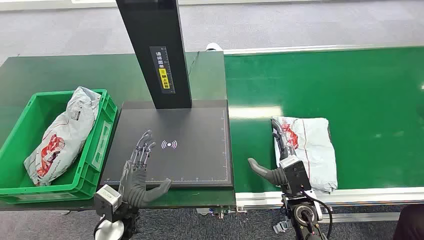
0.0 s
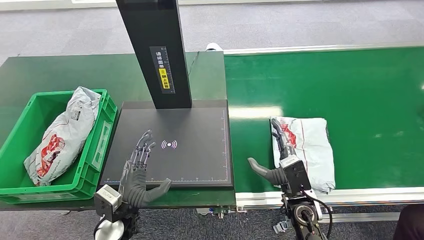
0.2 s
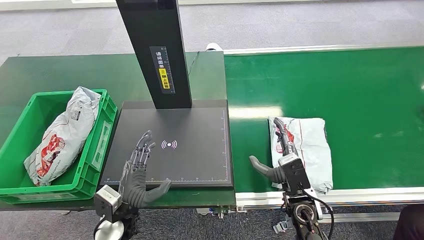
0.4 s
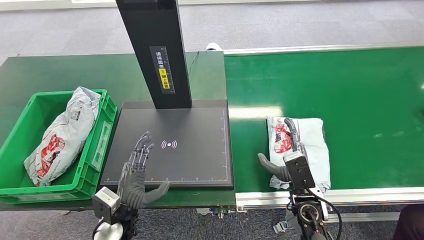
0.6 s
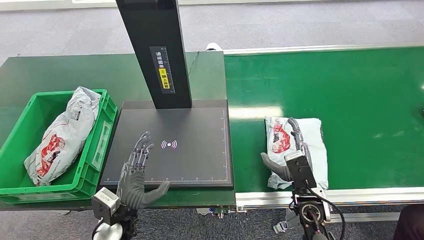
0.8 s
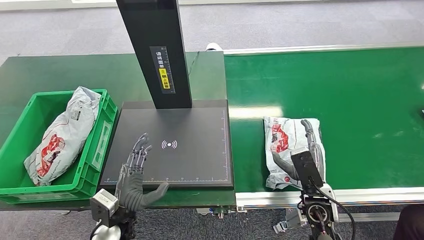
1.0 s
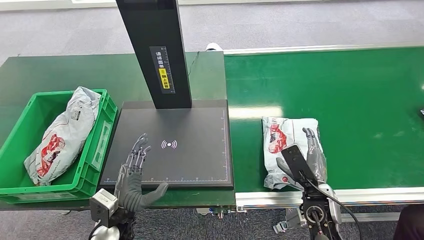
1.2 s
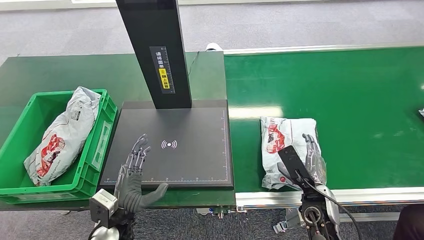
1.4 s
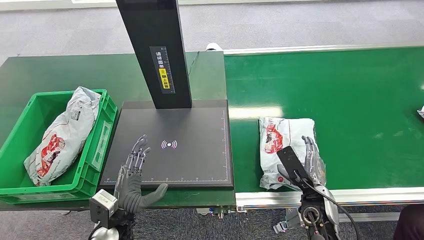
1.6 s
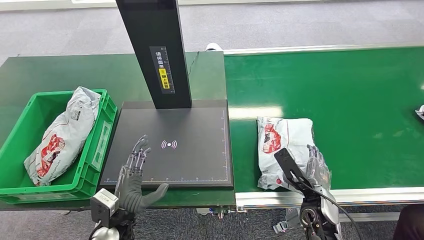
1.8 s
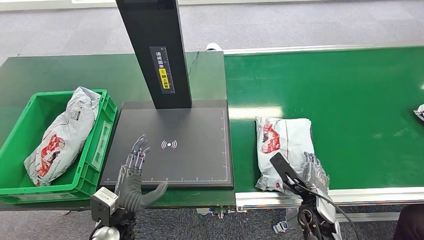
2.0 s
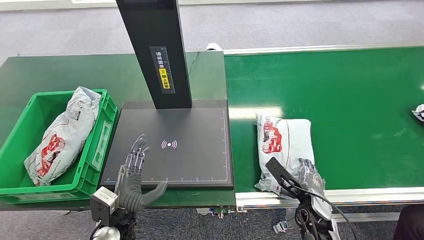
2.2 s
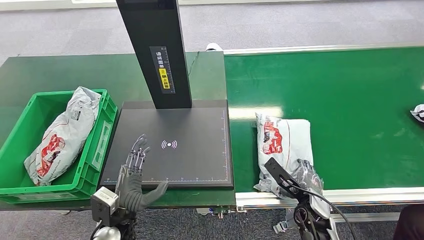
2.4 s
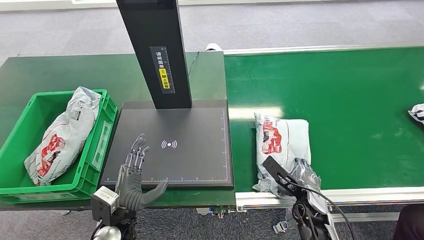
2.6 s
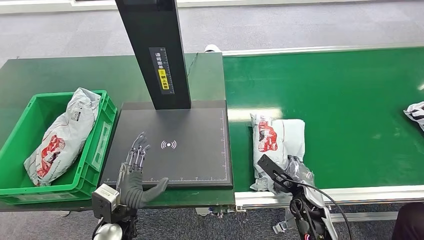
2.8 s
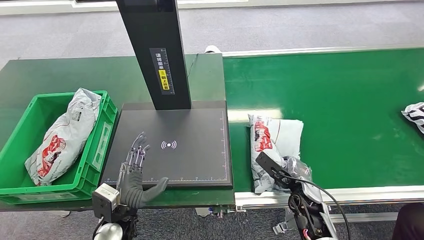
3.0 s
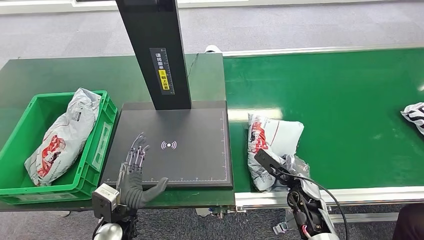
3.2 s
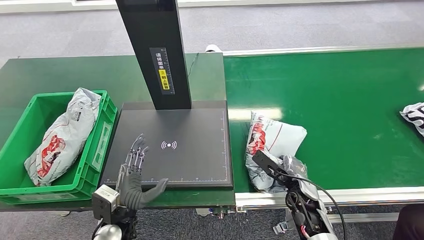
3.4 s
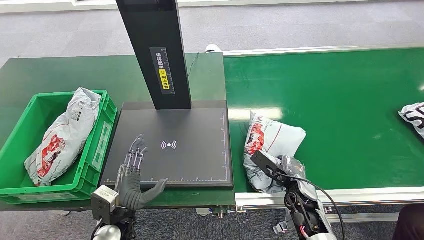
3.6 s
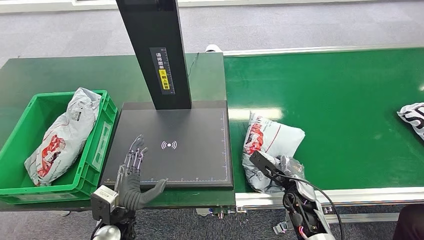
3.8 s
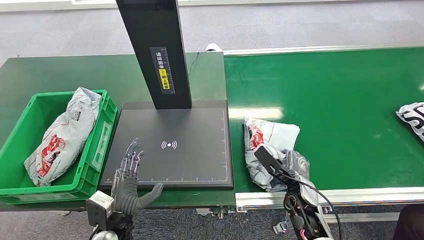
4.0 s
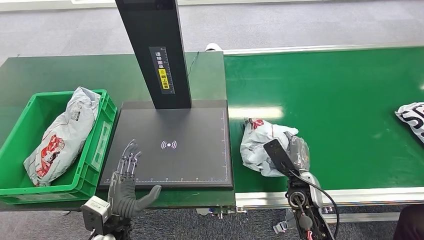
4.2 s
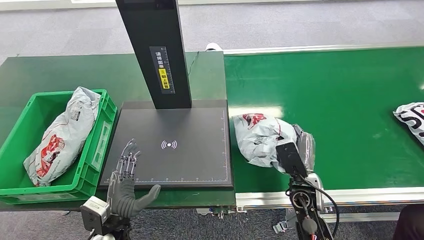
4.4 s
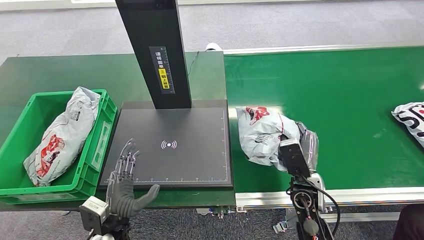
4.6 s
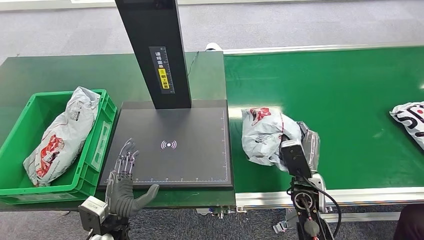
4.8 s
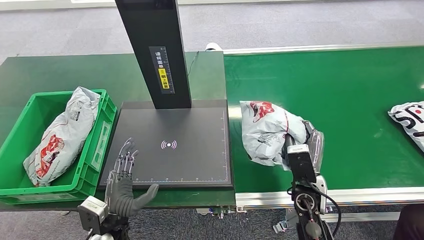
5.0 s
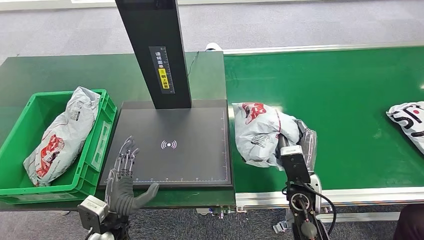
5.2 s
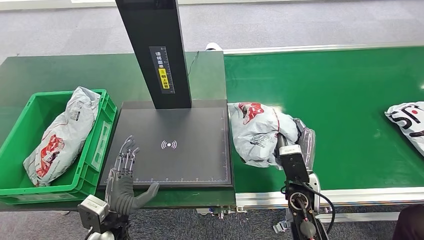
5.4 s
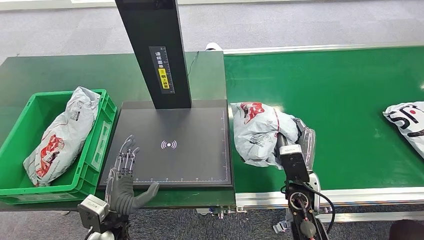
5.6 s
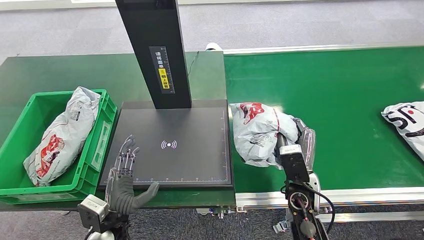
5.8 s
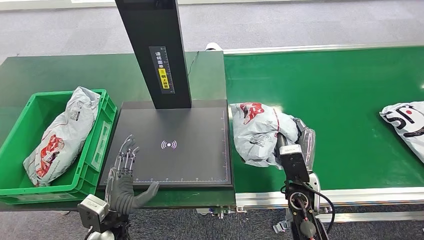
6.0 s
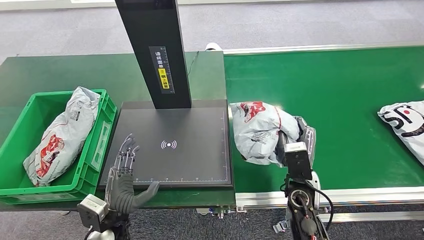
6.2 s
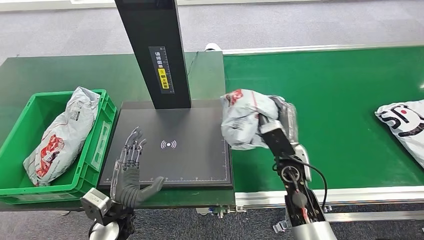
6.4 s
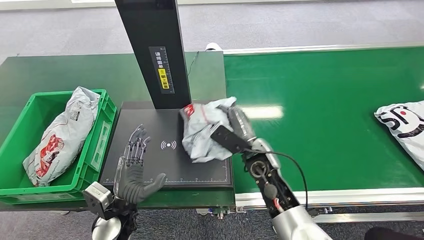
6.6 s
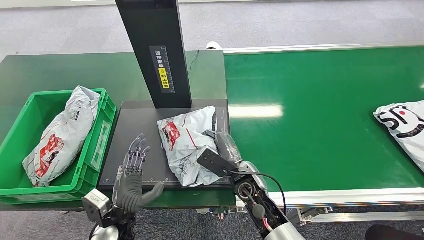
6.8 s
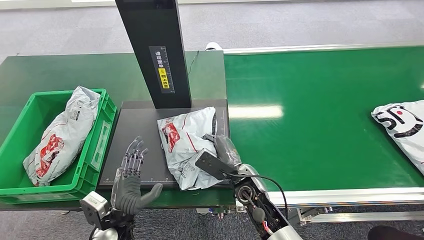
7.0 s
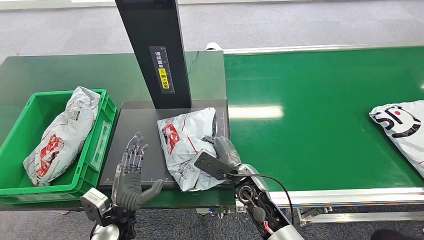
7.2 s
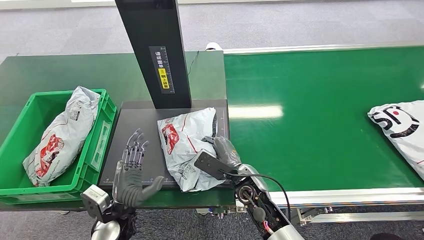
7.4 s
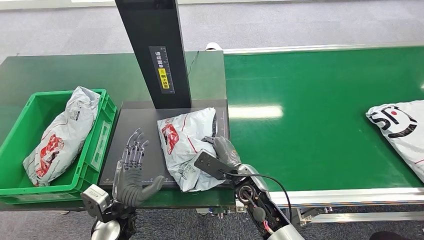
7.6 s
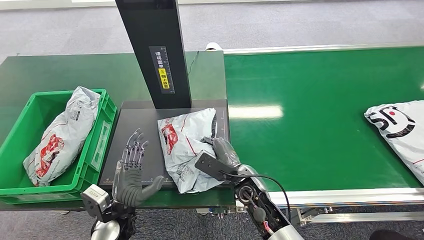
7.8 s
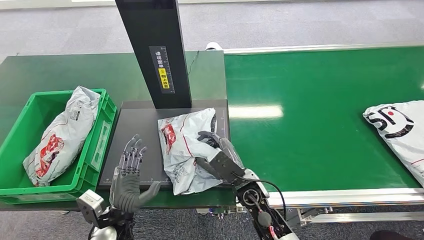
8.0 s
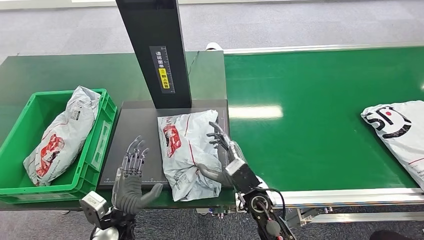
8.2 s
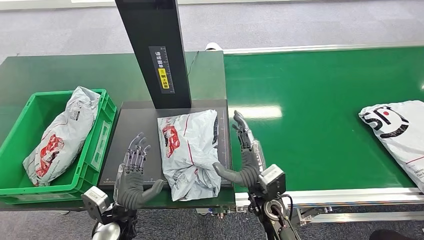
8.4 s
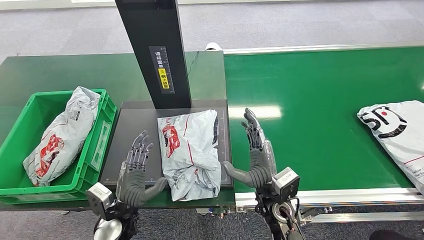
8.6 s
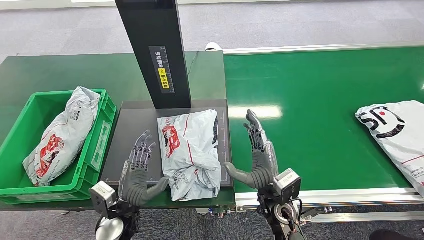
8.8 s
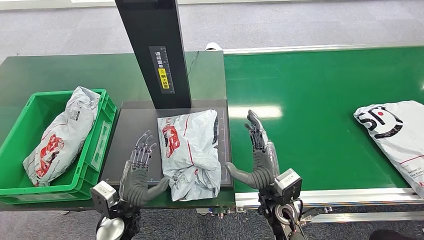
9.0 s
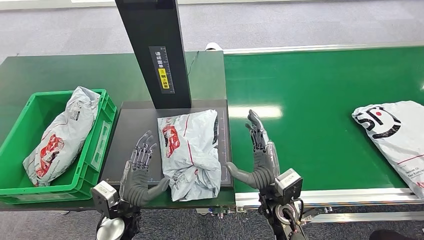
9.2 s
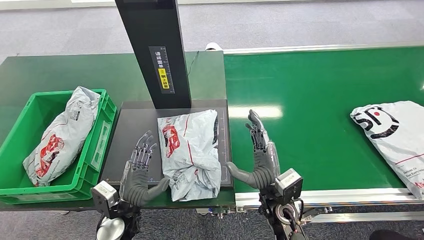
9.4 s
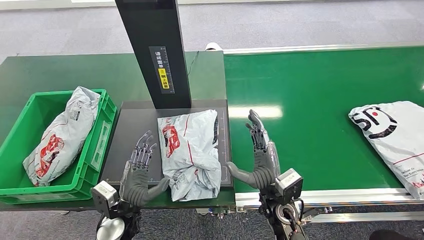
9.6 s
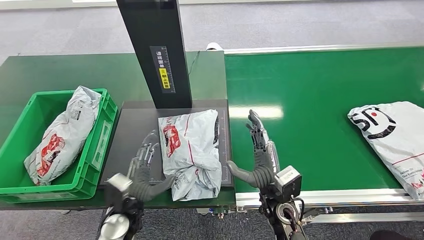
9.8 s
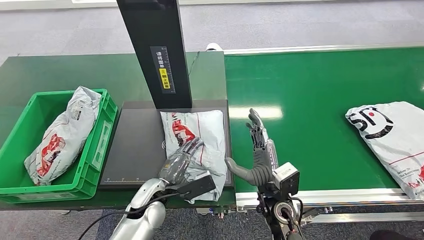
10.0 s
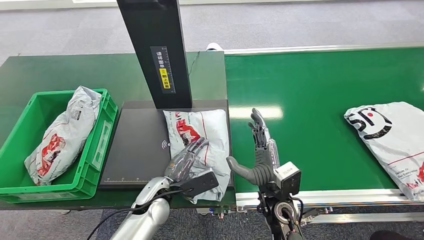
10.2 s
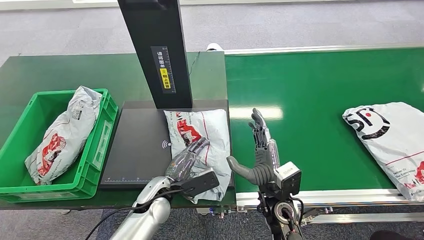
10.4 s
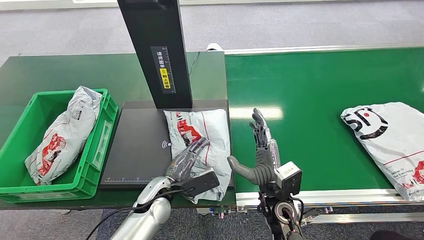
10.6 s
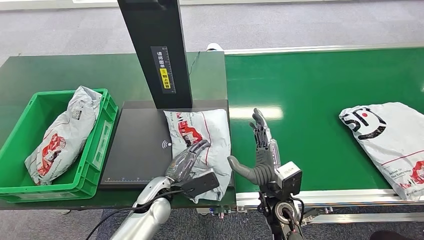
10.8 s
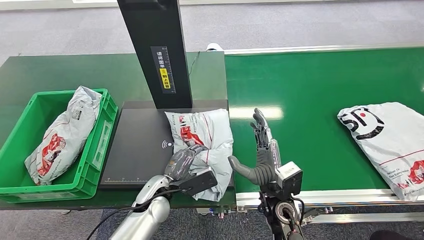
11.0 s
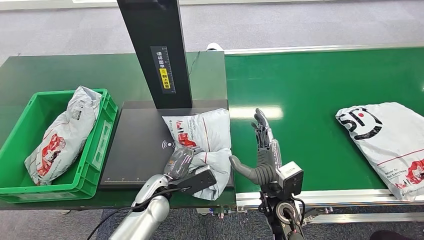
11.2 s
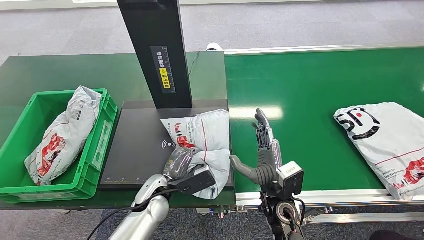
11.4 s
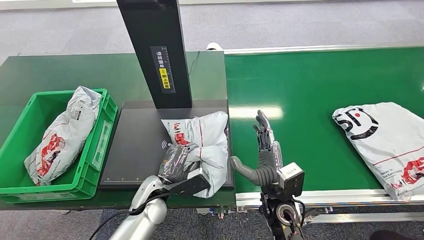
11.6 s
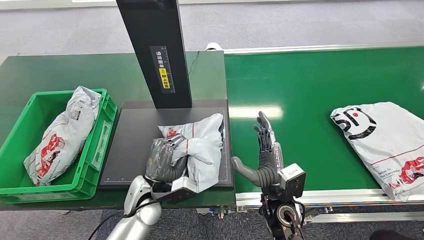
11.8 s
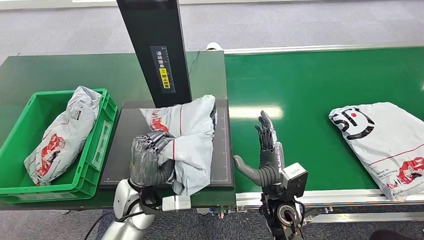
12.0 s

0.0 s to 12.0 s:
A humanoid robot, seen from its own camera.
Step, 0.0 to 4.6 s: Pick up the package from the conveyor belt.
Step, 4.8 to 8.8 s: Place the package onto the inbound machine.
3.0 to 4.4 s: The right hand moves upward, roughly 5 cm.
4.4 to 6.0 s: The hands move only a little.
6.0 to 7.6 s: The right hand moves to the left, approximately 10 cm.
7.6 to 9.0 s: The right hand changes place by roughly 5 cm.
10.4 to 12.0 s: The left hand shifts approximately 5 cm upward.

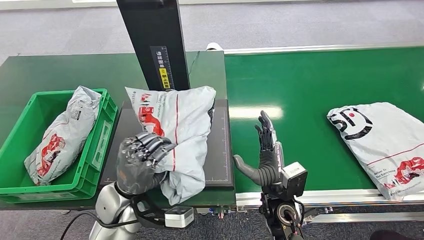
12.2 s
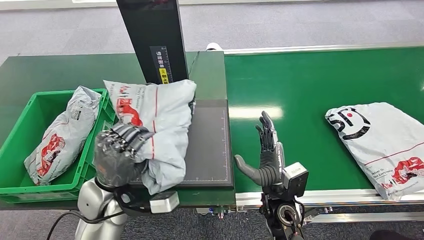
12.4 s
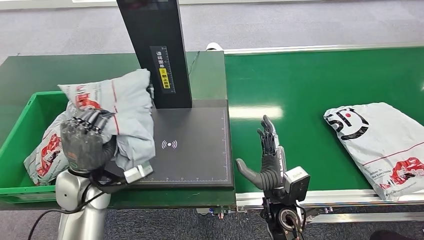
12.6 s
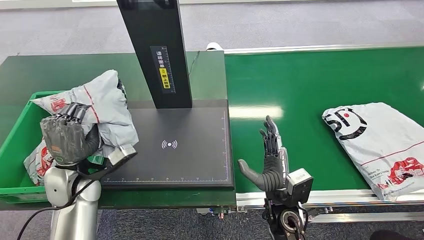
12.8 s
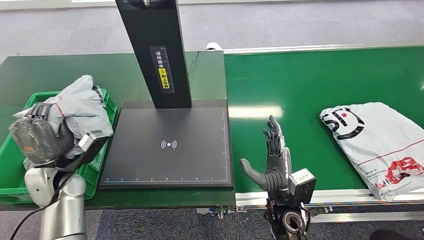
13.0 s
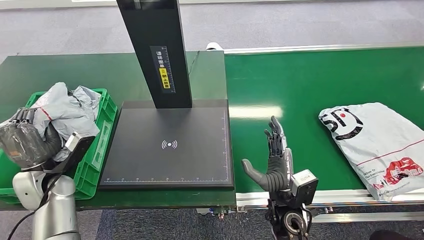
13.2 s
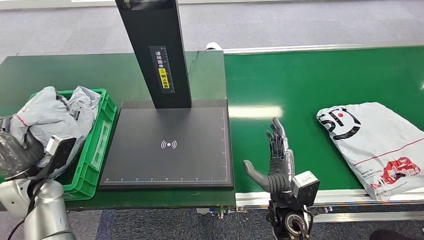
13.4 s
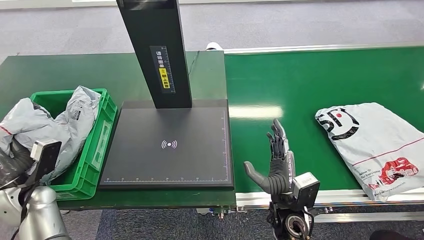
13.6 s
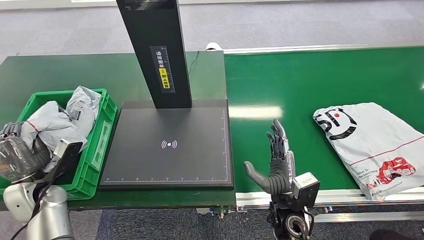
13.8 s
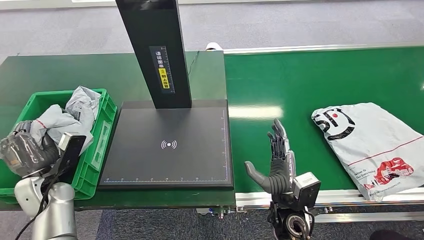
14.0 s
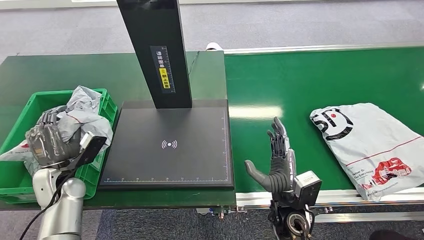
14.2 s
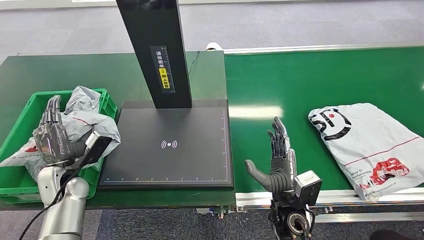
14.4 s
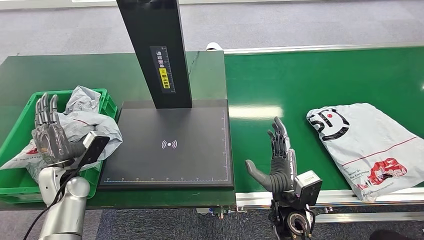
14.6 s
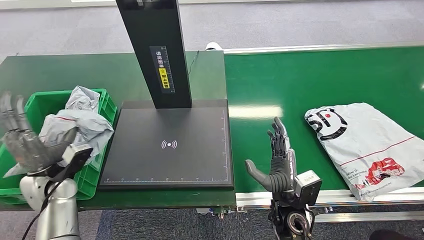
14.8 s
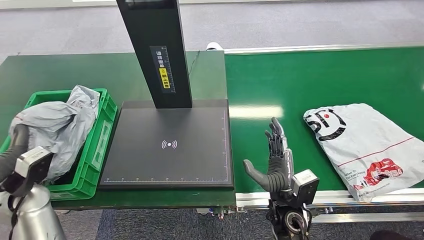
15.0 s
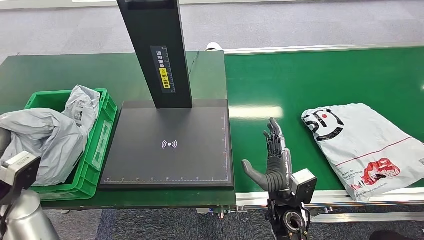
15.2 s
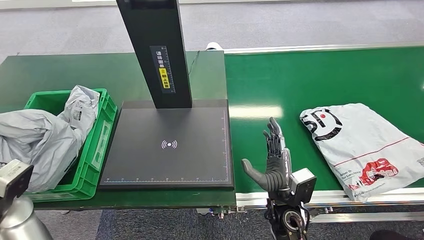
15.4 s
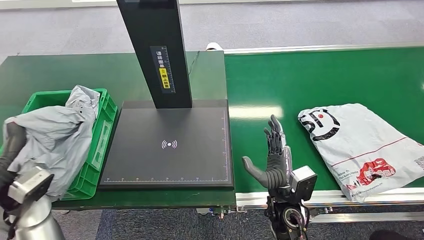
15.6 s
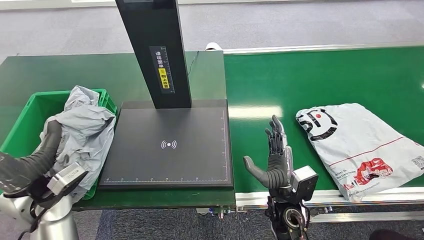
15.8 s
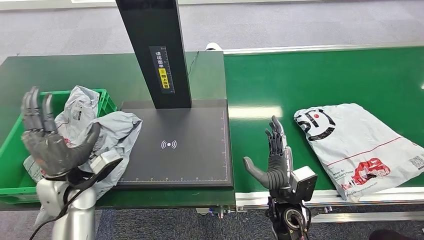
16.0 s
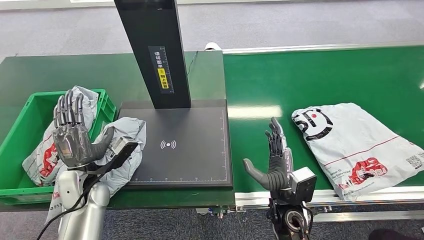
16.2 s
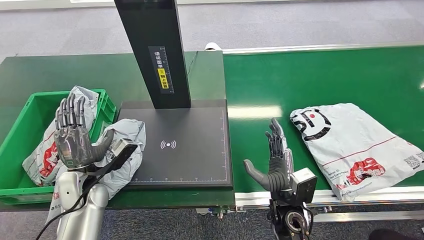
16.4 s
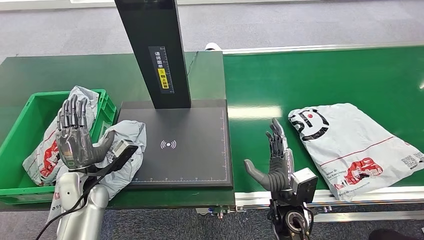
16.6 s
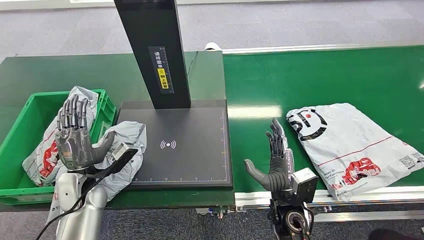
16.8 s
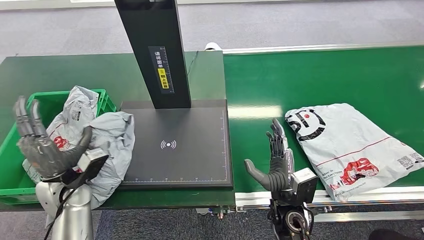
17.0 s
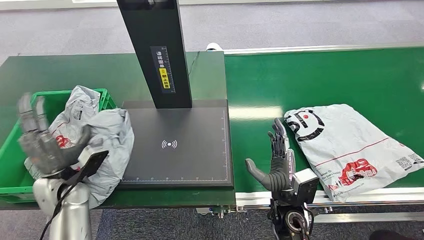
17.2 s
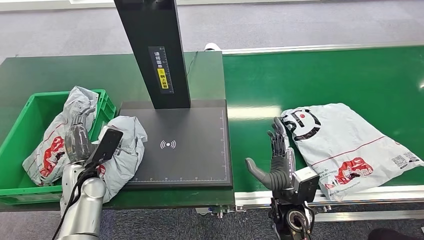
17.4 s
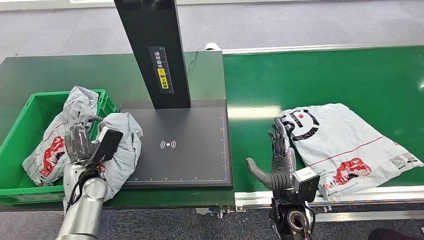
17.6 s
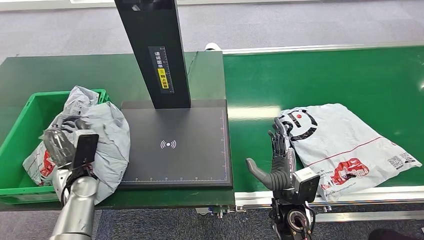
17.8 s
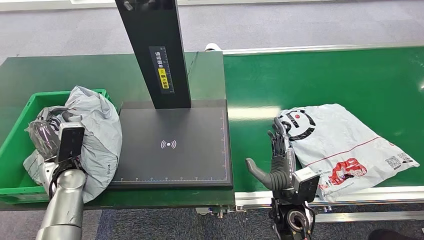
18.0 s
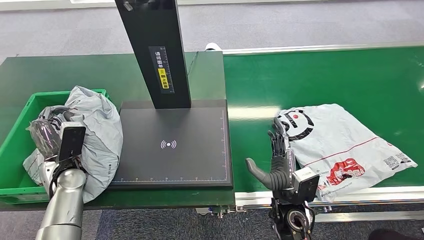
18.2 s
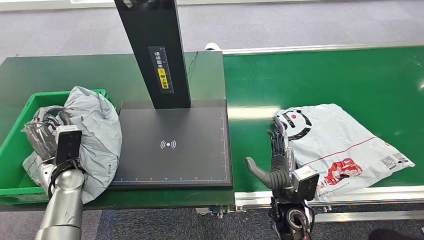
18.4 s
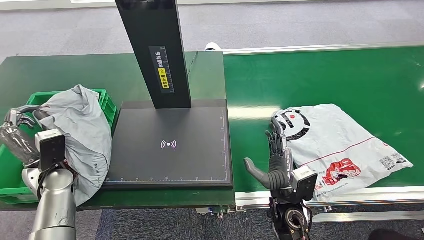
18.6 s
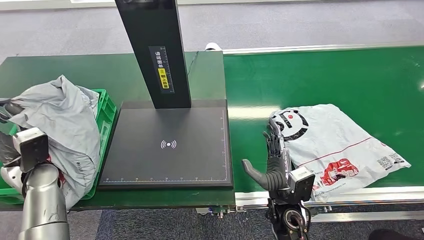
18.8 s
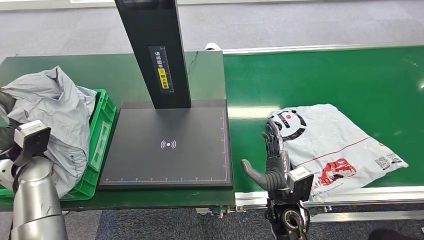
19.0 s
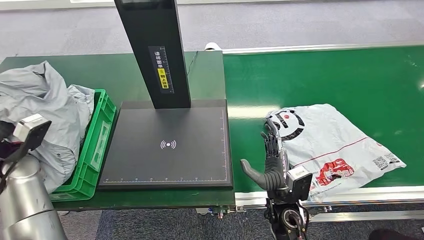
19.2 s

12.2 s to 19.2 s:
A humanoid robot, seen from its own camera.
13.6 to 15.0 s: The left hand ends up some 5 cm from where it was.
